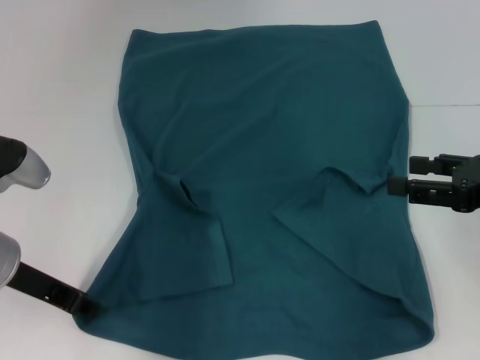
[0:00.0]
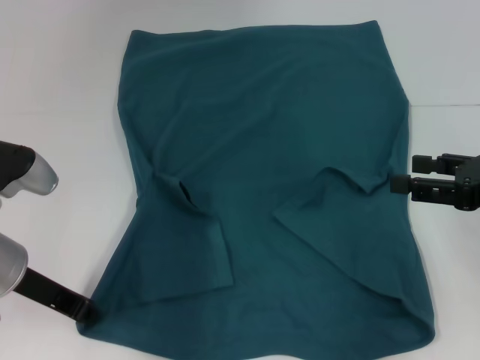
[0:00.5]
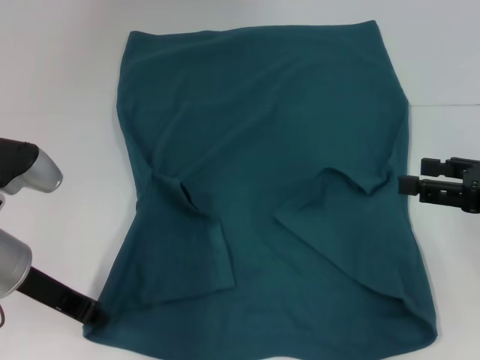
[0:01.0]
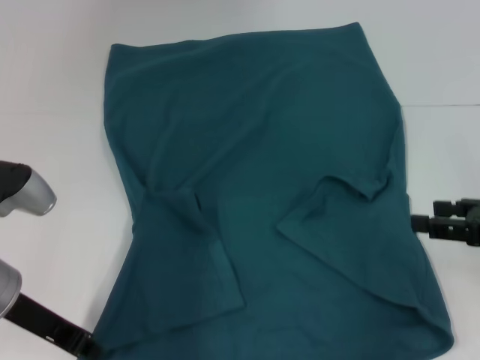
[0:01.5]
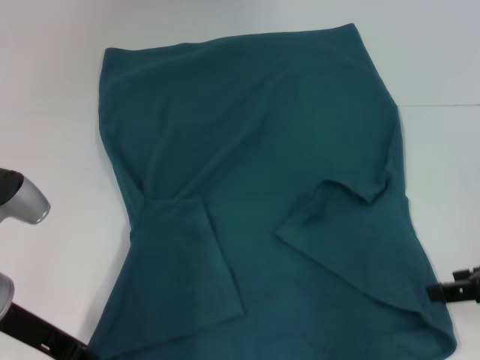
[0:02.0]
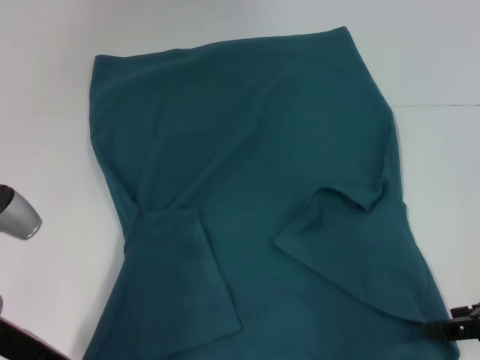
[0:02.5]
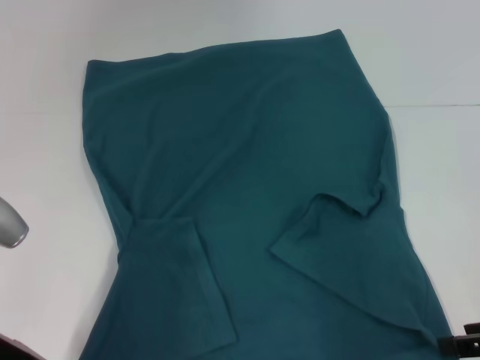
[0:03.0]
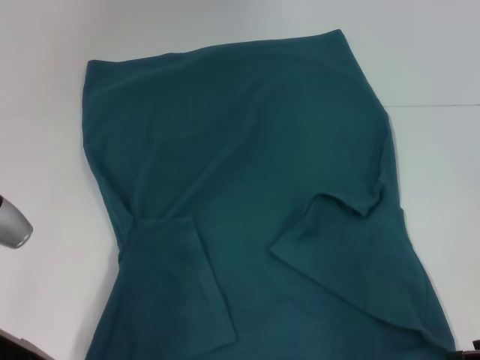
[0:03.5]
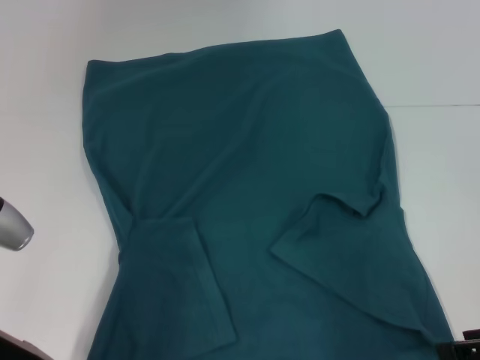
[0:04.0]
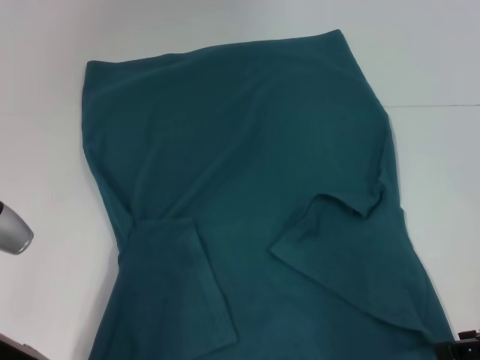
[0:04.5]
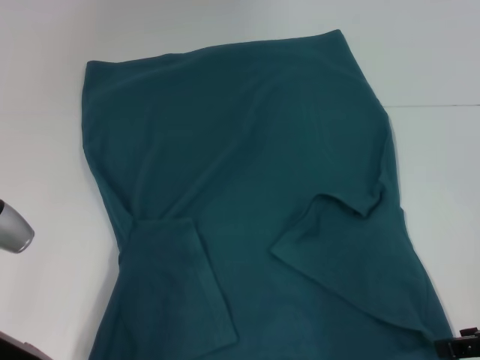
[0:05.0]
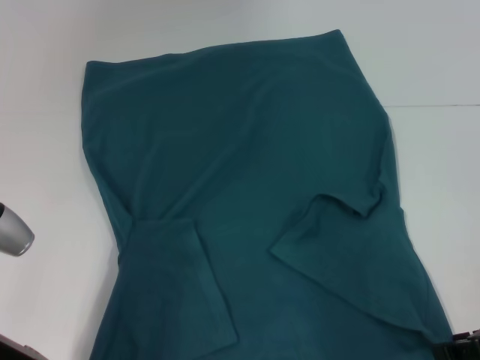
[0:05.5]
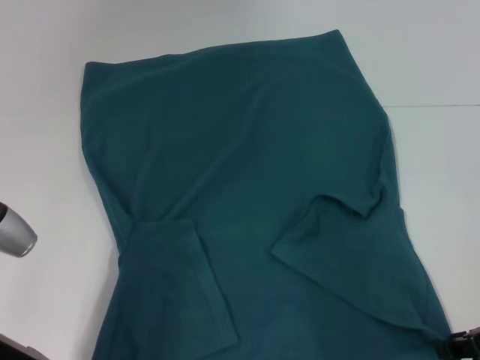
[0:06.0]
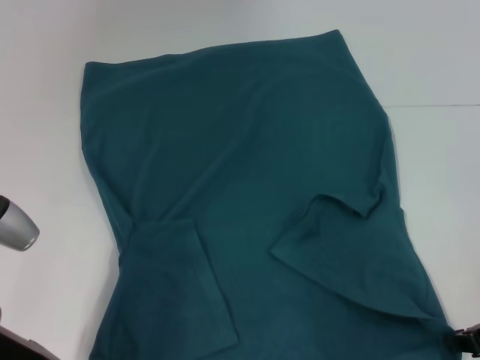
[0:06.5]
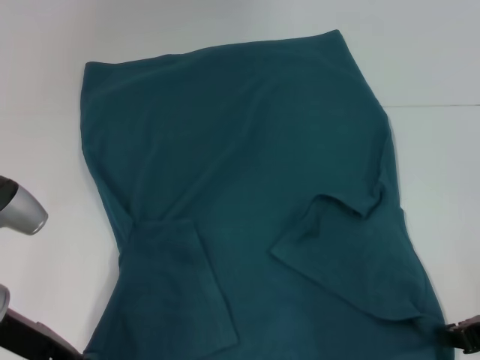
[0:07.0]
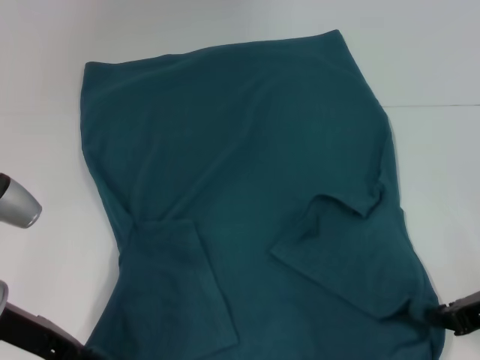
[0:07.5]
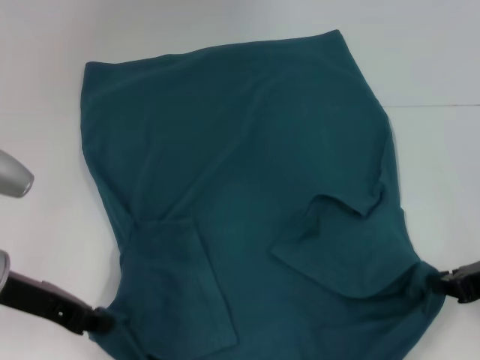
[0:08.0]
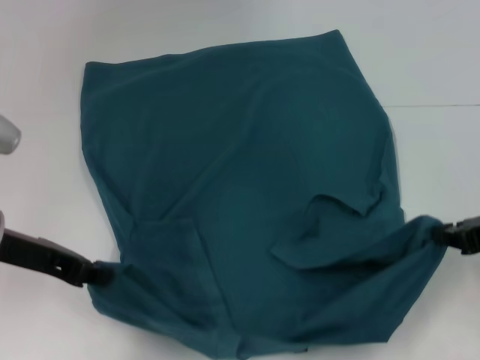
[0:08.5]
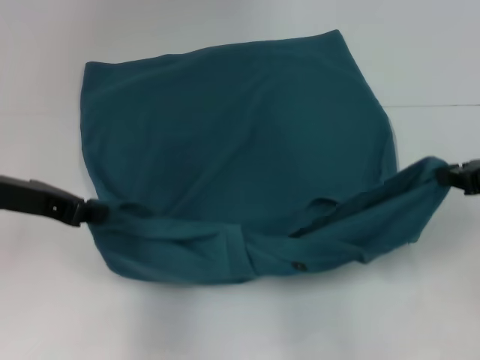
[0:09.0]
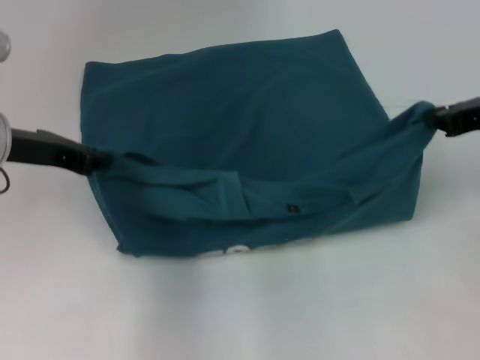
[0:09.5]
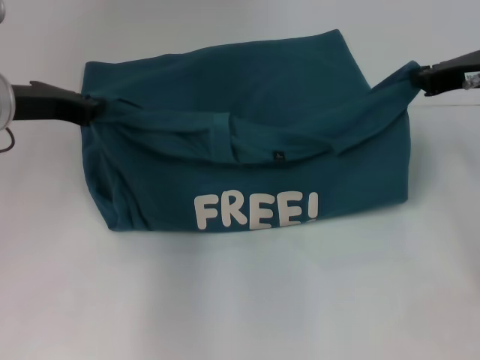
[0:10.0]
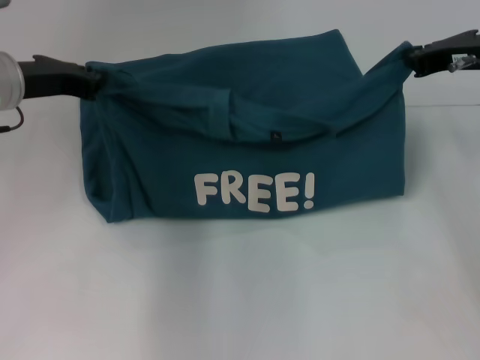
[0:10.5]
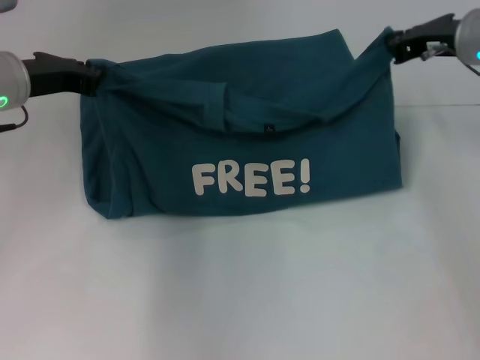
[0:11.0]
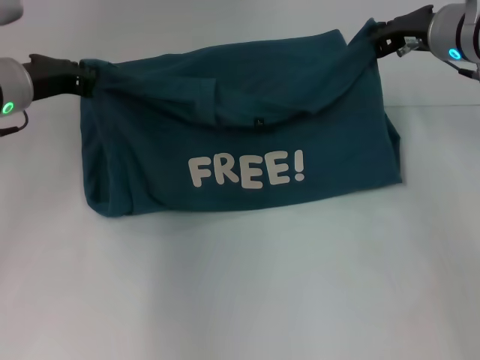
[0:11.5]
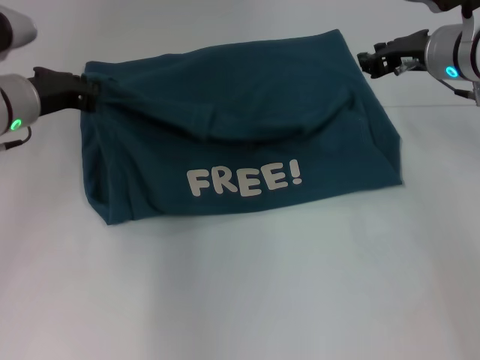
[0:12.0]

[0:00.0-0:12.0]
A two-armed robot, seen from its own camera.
Step, 0:02.0 to 0:07.0: Grab the bottom right corner with your right hand.
0:00.0 to 0:02.0: The left gripper closes up.
0:02.0 to 0:04.0: The right gripper ends up about 5 cm from where it was.
0:04.0 to 0:06.0: The grippers stay close to where they were, moving slightly.
0:06.0 to 0:08.0: The right gripper closes.
0:08.0 to 0:10.0: The two grippers go roughly 15 cm forward and upward.
0:10.0 to 0:12.0: The right gripper heads forward, covering some 5 cm. The left gripper moves approximately 5 cm.

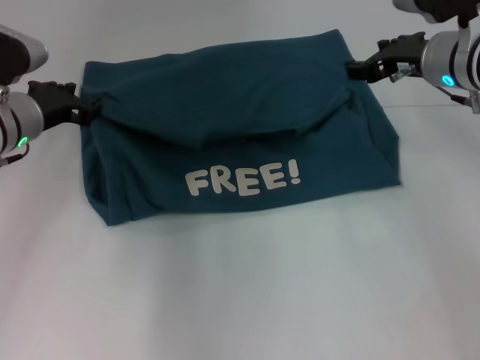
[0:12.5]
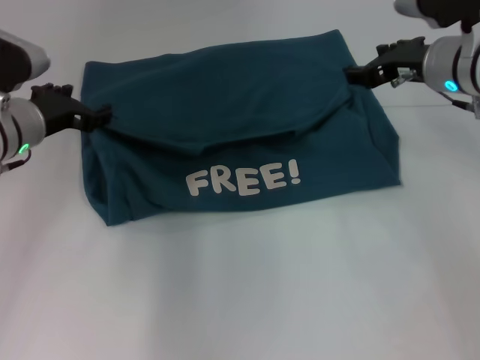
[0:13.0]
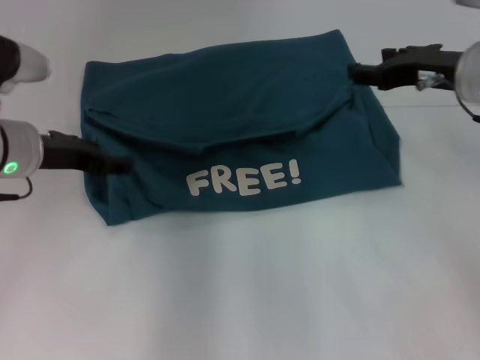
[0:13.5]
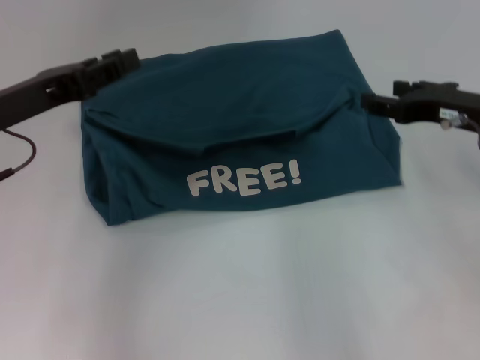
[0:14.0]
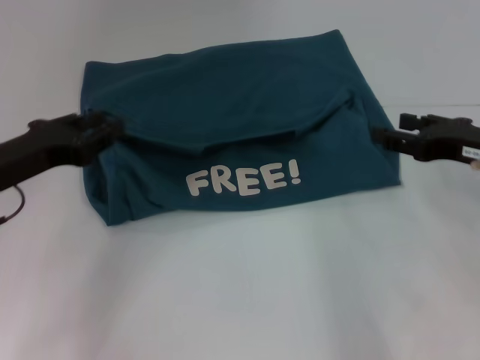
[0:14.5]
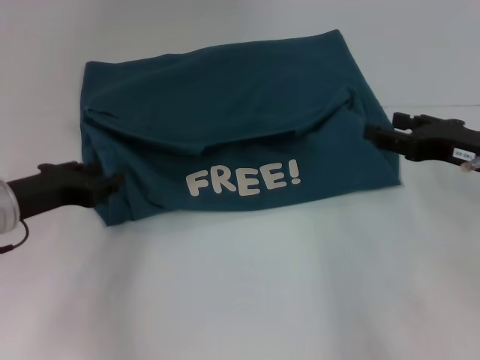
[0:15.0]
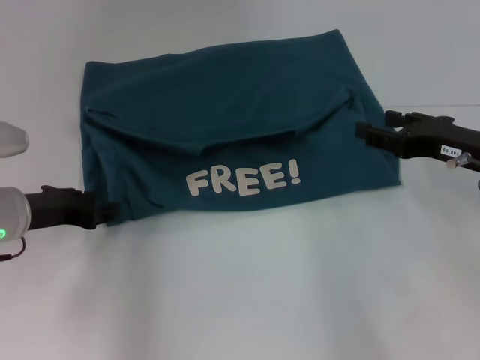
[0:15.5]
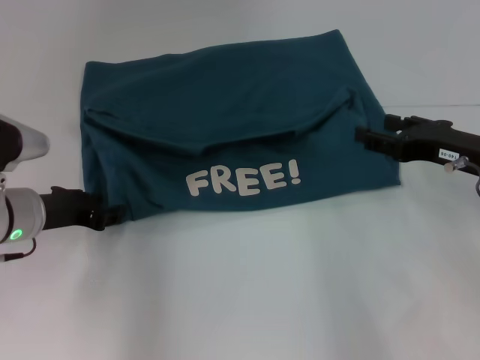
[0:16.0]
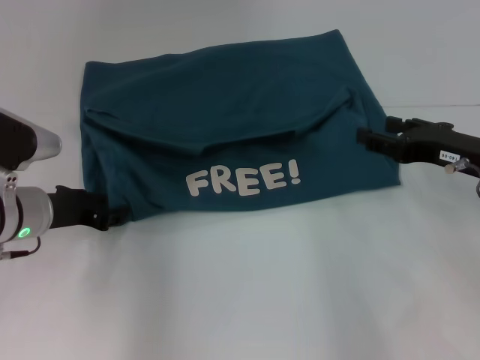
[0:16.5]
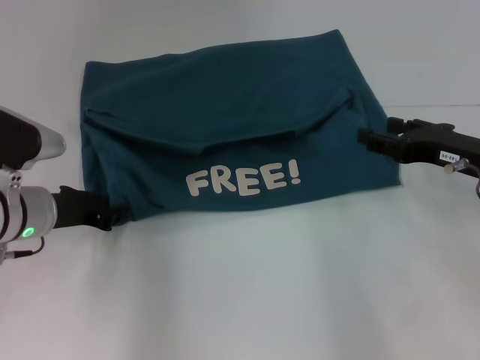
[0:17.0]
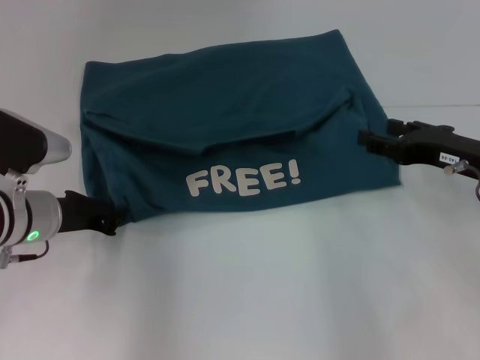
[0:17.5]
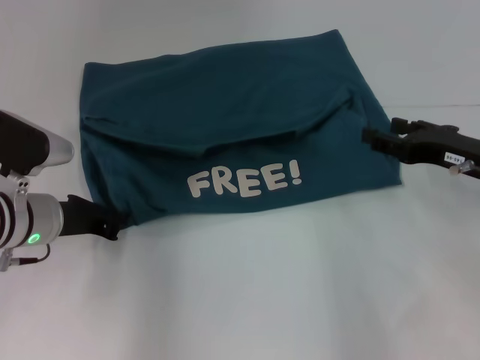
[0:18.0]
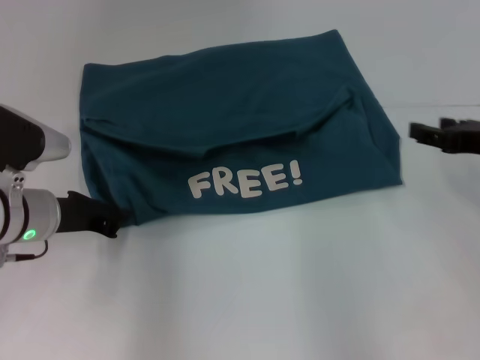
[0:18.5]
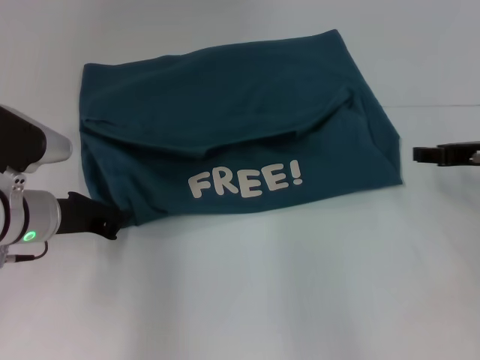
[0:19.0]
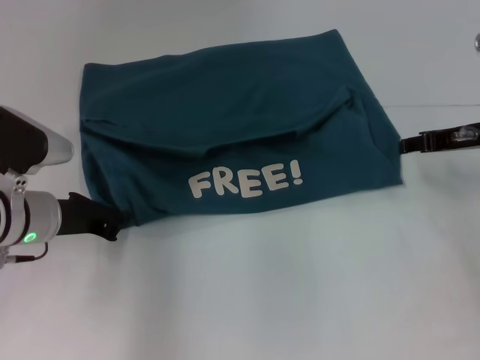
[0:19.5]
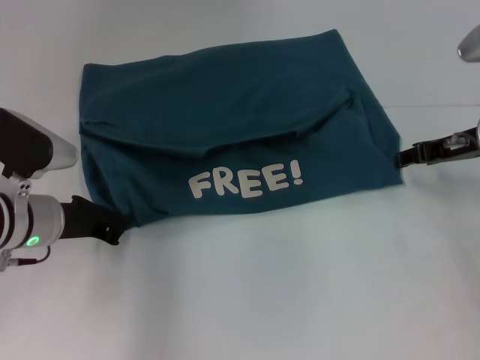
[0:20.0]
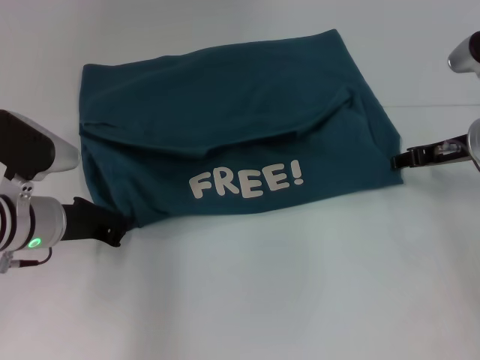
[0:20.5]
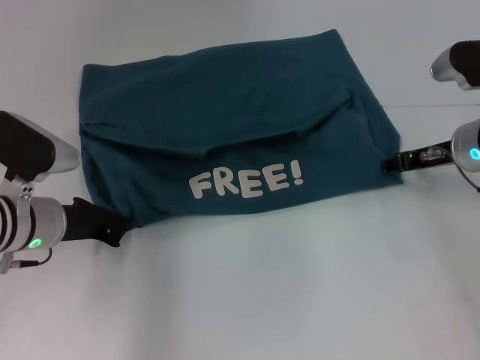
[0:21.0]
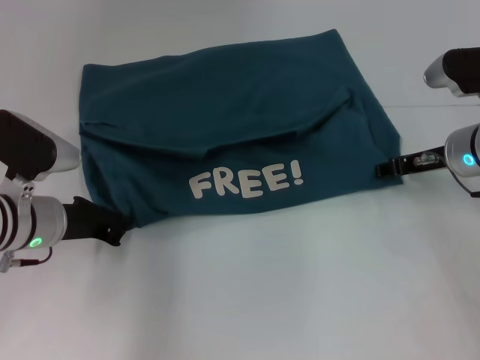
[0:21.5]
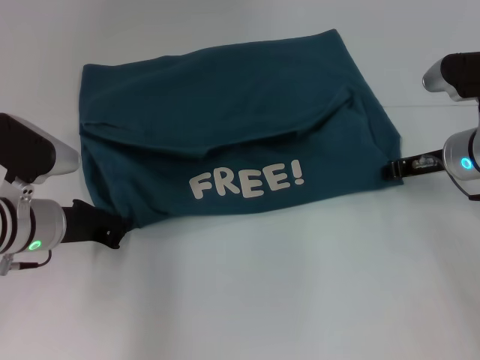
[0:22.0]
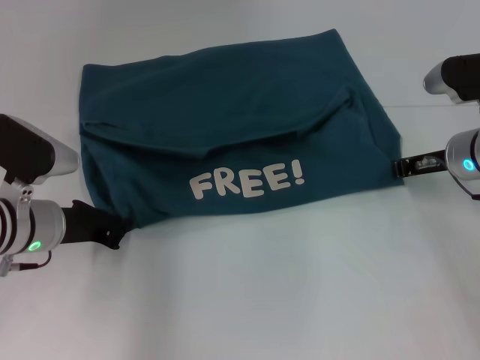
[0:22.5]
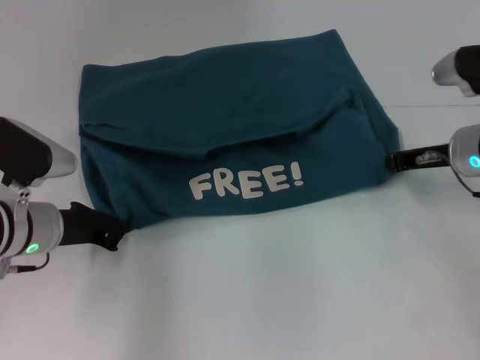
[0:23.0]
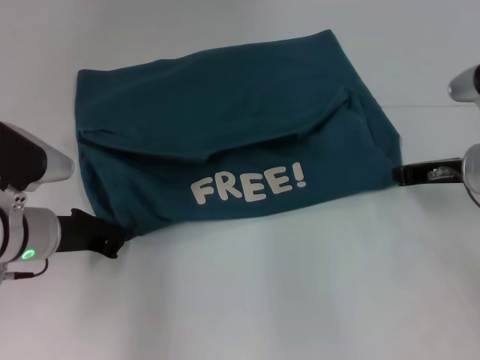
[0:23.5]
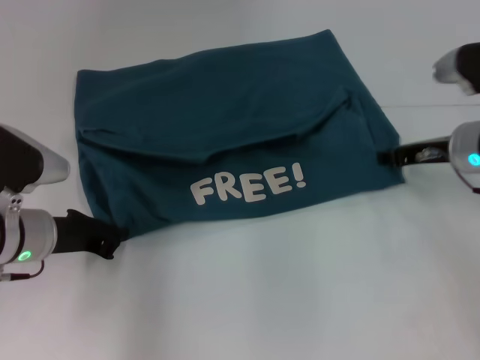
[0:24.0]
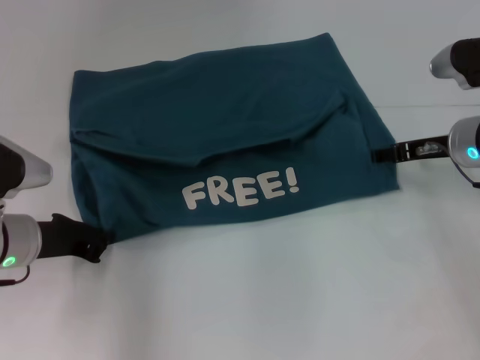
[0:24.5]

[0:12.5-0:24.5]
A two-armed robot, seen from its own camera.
0:12.5 to 0:14.5: The left gripper heads backward, covering approximately 10 cm, and opens, then closes once more; the right gripper travels backward and to the right by some 15 cm.
0:14.5 to 0:16.5: The left gripper is displaced downward by approximately 5 cm.
0:16.5 to 0:18.5: The left gripper closes its fingers.
0:18.5 to 0:20.5: The right gripper heads forward, covering roughly 10 cm.
0:20.5 to 0:22.5: The right gripper closes up.
0:22.5 to 0:24.5: The right gripper opens up.

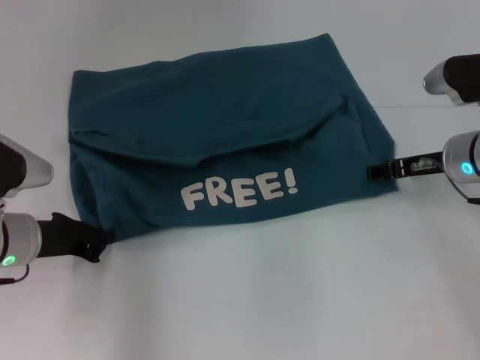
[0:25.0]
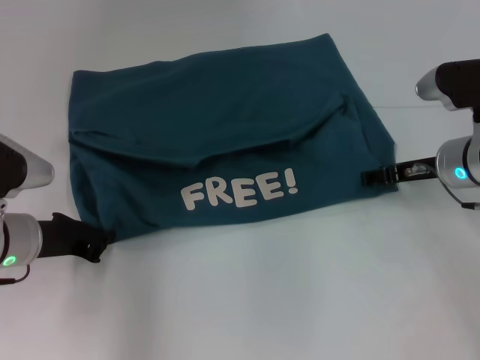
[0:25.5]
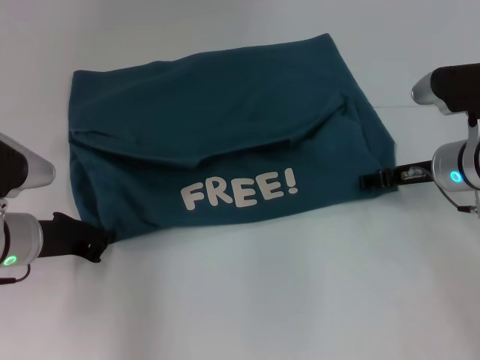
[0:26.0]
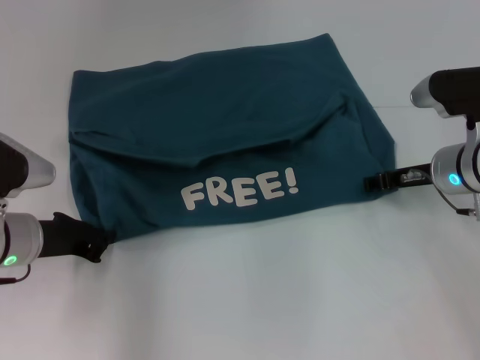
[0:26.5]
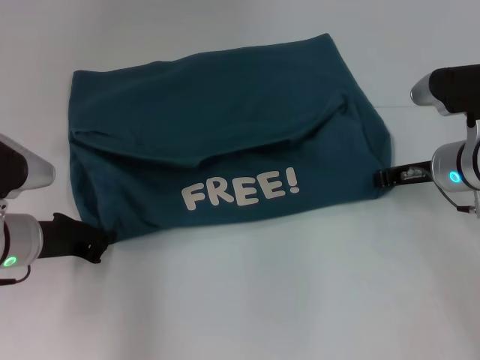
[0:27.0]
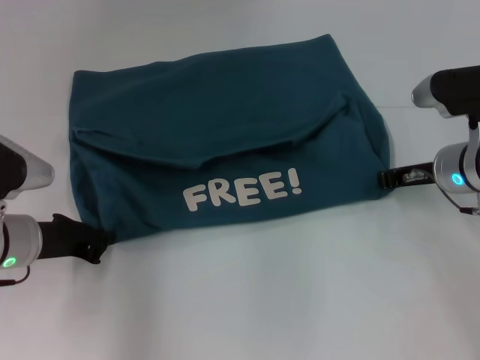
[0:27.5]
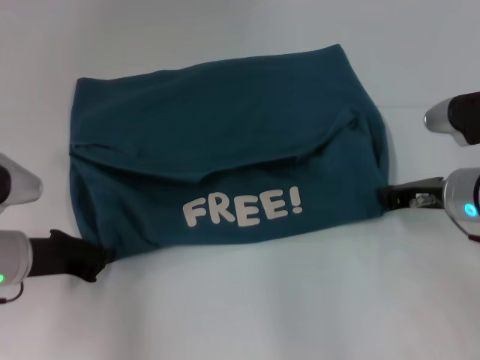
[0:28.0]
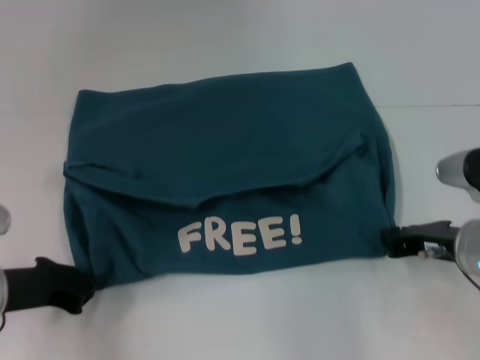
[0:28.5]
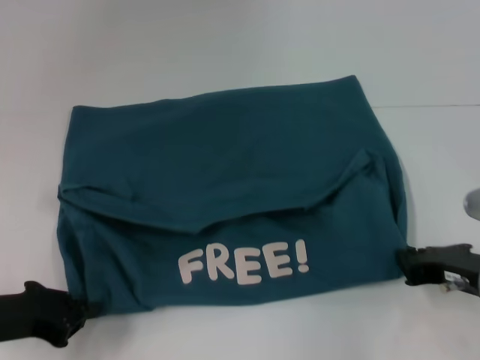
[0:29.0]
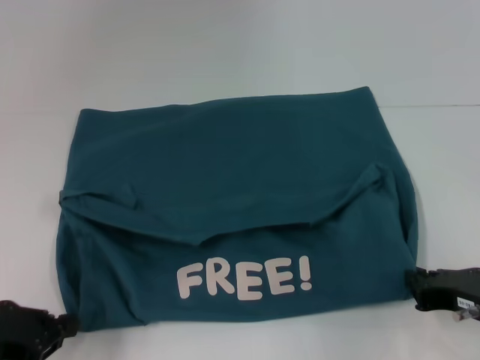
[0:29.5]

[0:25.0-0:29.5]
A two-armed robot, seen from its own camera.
0:25.0 to 0:27.0: The right gripper closes up.
0:27.0 to 0:29.5: The right gripper moves backward, some 20 cm. The left gripper shifts approximately 15 cm backward and to the left.
